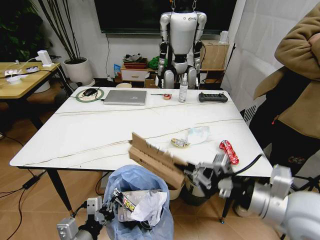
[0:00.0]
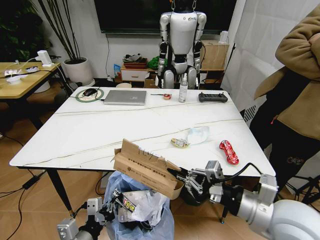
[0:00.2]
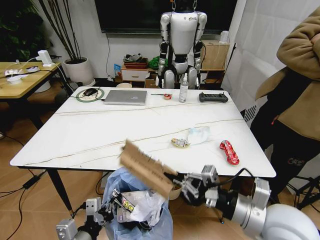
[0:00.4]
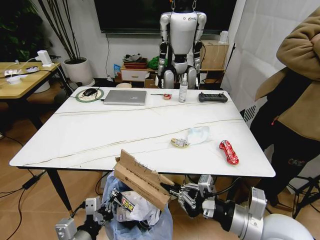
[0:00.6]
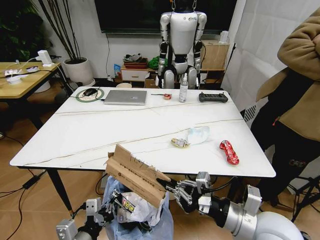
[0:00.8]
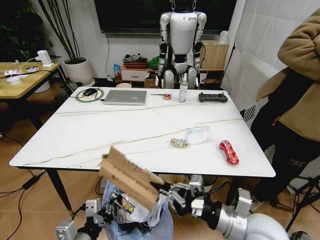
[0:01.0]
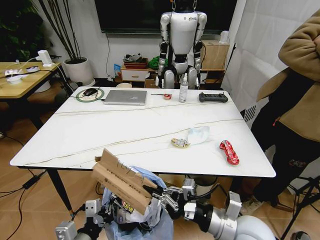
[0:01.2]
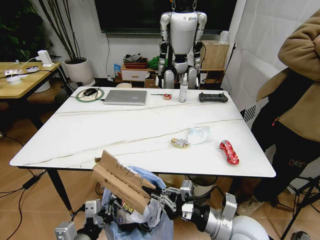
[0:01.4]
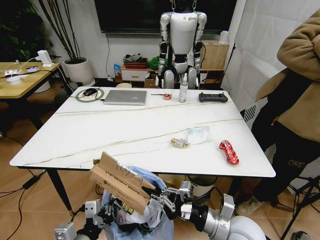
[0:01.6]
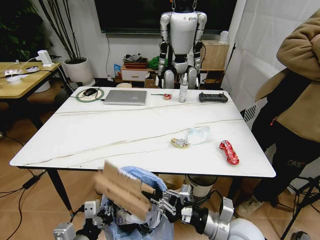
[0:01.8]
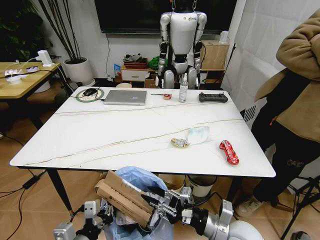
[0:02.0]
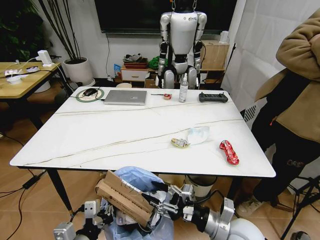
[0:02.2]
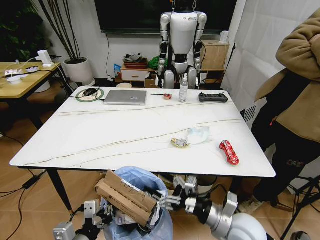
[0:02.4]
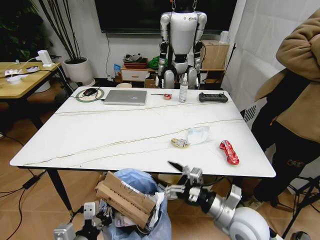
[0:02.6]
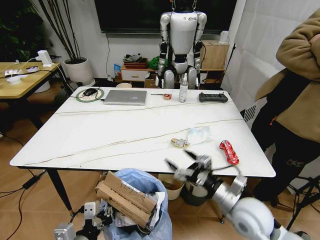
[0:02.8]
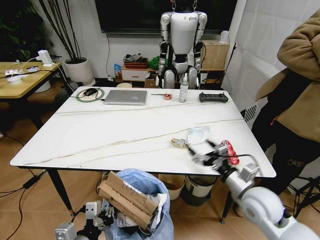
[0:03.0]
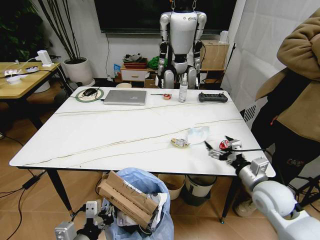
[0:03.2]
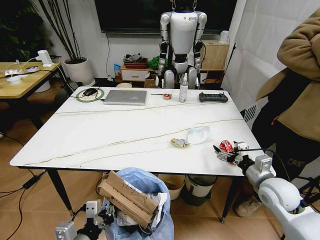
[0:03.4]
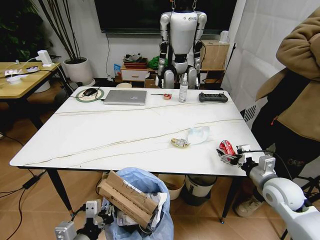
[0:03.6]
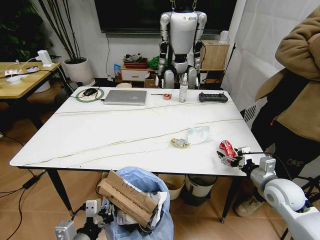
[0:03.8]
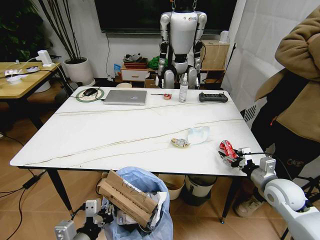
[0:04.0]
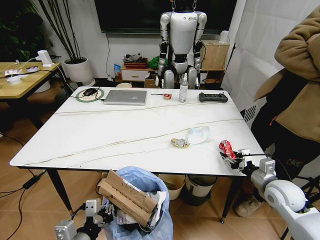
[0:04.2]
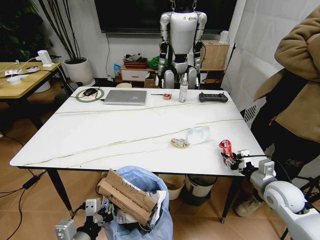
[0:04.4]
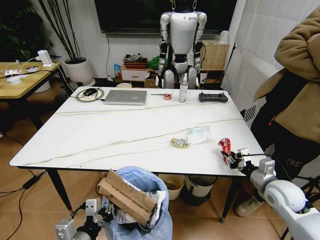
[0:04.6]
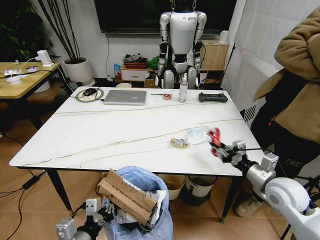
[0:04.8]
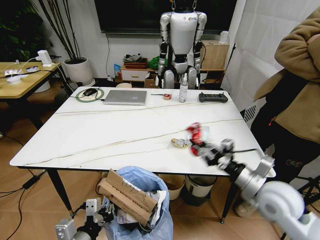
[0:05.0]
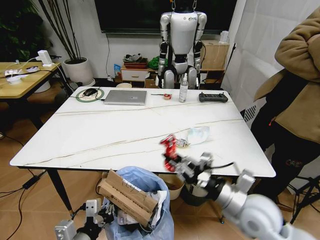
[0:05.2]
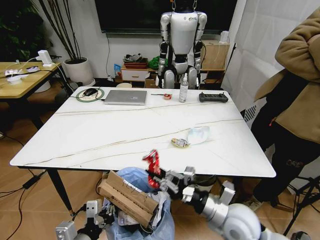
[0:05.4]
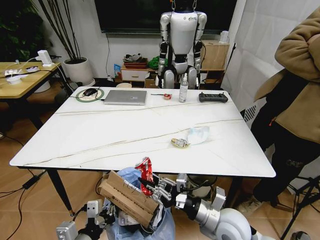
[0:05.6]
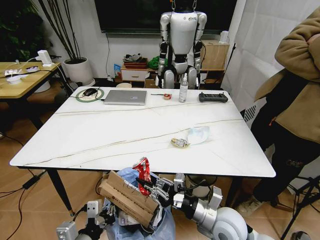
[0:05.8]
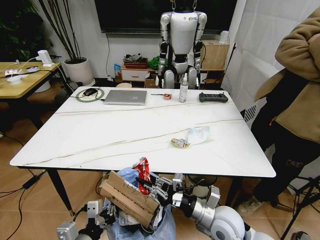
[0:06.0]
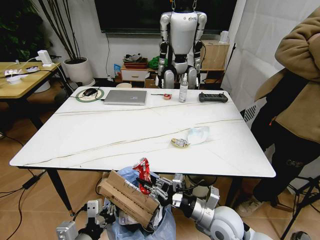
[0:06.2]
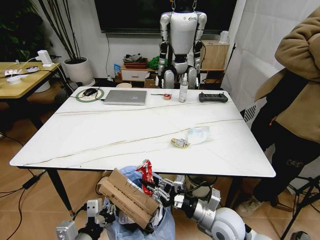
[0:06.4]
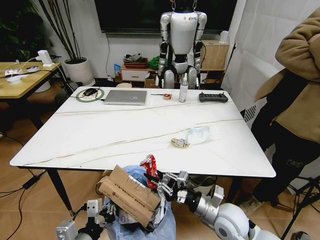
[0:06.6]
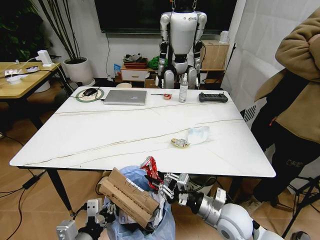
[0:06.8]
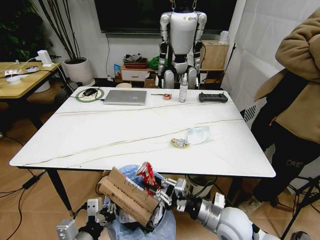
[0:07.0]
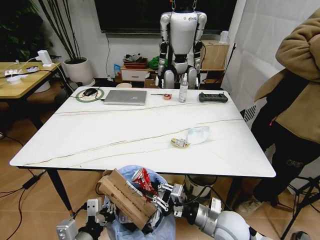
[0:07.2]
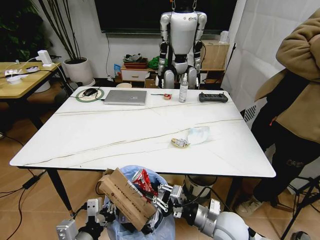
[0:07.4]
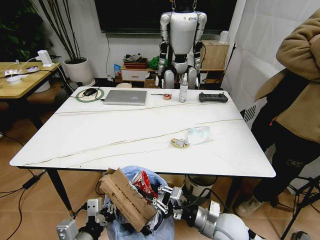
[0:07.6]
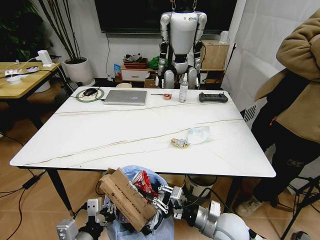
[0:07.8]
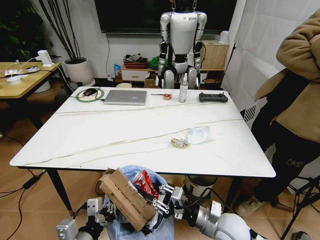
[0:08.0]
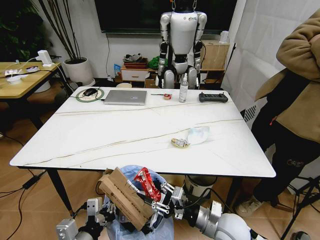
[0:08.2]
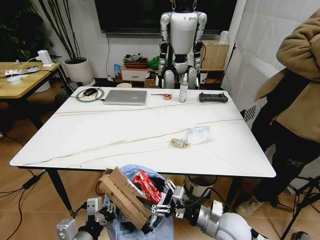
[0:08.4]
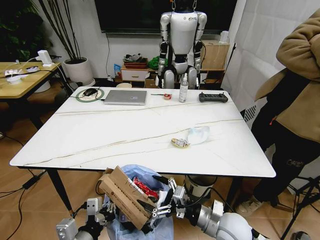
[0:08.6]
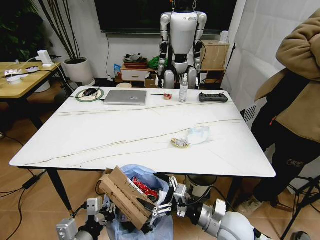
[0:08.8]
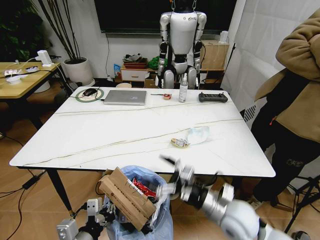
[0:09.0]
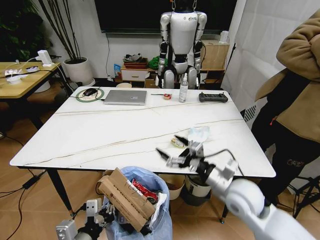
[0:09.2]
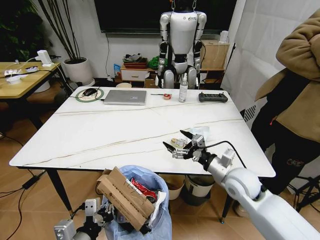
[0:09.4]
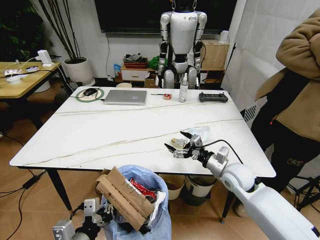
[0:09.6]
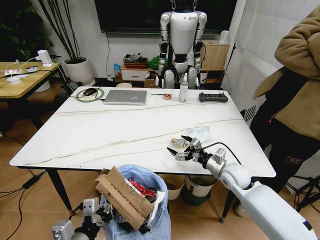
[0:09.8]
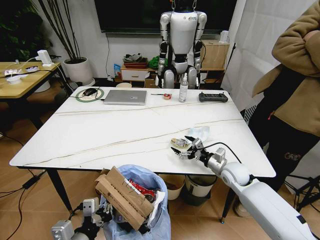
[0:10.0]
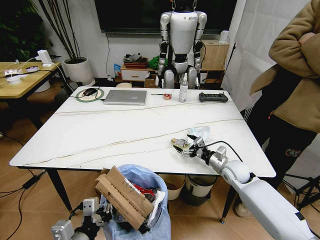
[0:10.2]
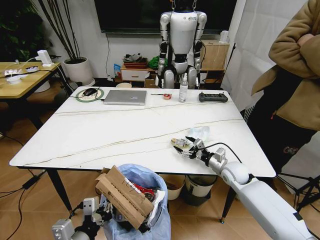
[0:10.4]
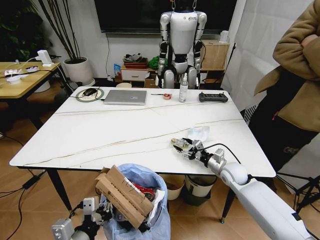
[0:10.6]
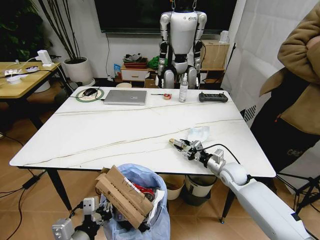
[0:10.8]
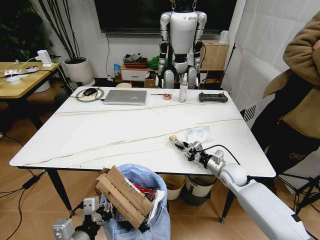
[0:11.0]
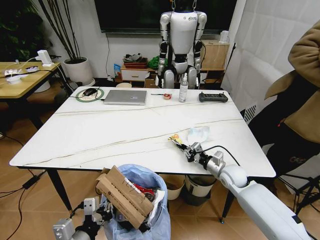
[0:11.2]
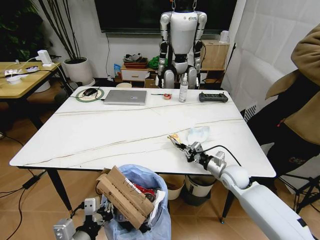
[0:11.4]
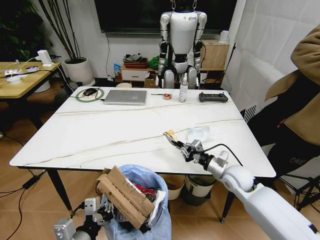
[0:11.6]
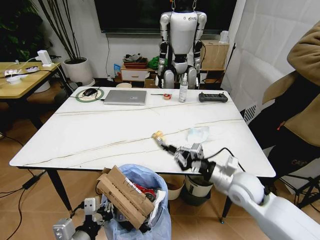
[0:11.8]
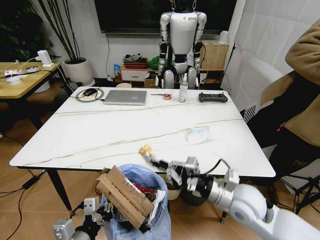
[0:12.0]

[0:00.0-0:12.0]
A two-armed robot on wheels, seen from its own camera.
Task of the whole recording: Pick up the trash bin and place the trash from the table into it.
0:00.0 to 0:01.6: The right gripper goes some 15 cm downward and to the left.
0:01.6 to 0:03.0: The right gripper travels to the right and forward by roughly 10 cm, and opens its fingers.
0:03.0 to 0:04.4: The right gripper shifts approximately 10 cm to the right, and closes.
0:04.4 to 0:06.0: The right gripper travels to the left by about 20 cm.
0:07.6 to 0:09.0: The right gripper opens its fingers.
0:09.0 to 0:10.4: The right gripper shifts roughly 20 cm forward and to the right.
0:10.4 to 0:12.0: The right gripper travels backward, upward and to the left by approximately 20 cm, and closes its fingers.

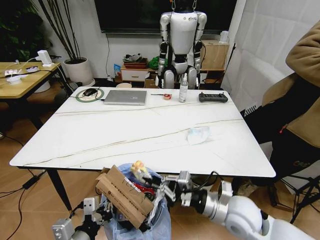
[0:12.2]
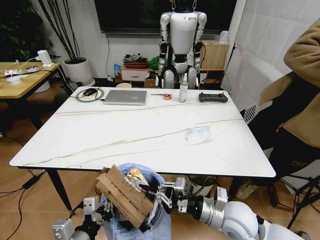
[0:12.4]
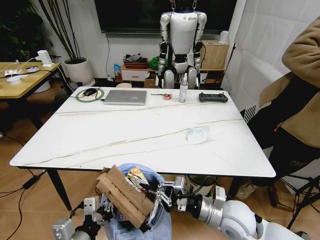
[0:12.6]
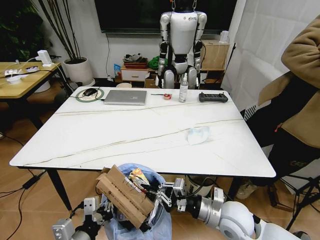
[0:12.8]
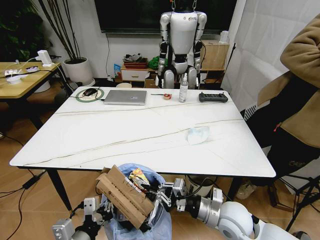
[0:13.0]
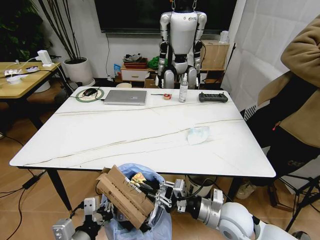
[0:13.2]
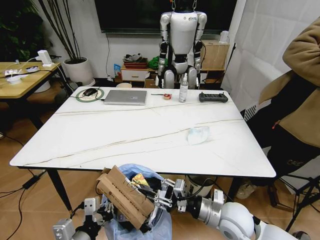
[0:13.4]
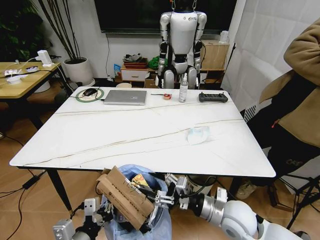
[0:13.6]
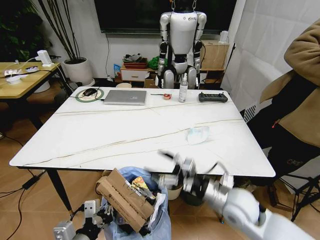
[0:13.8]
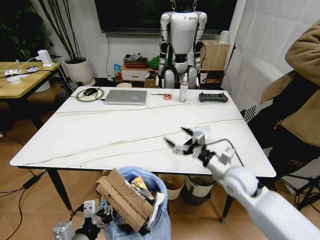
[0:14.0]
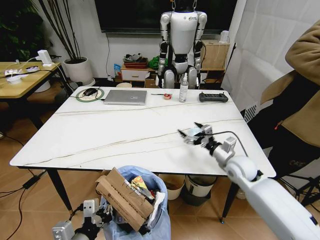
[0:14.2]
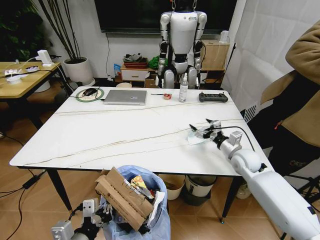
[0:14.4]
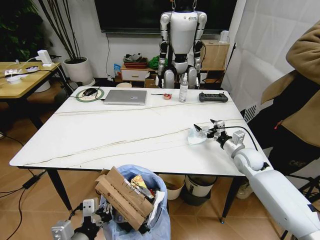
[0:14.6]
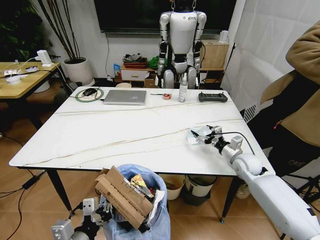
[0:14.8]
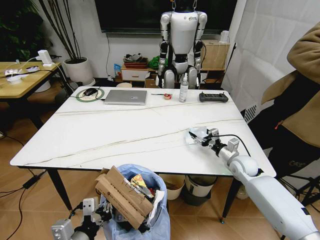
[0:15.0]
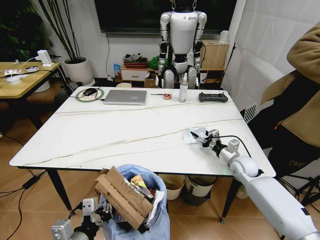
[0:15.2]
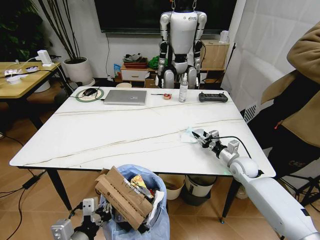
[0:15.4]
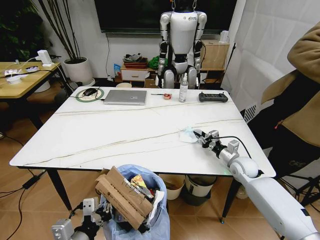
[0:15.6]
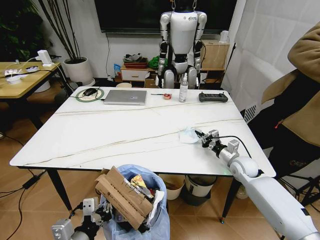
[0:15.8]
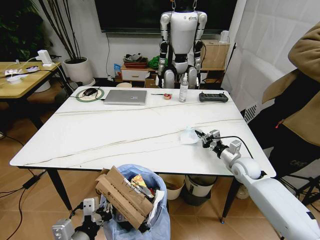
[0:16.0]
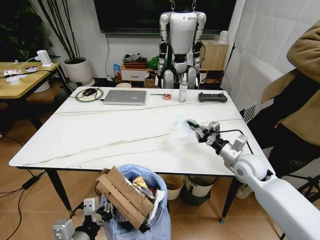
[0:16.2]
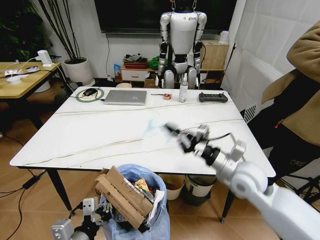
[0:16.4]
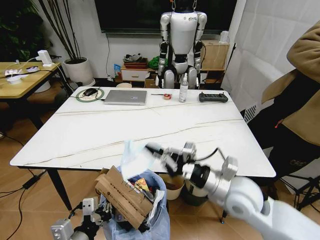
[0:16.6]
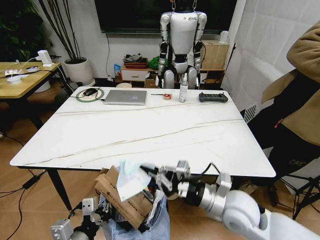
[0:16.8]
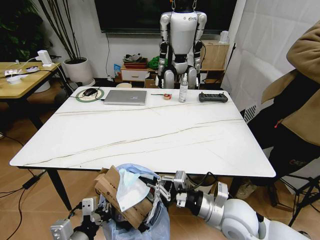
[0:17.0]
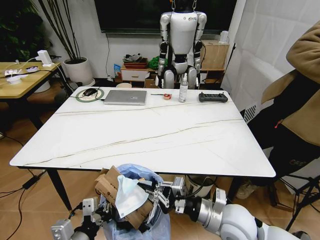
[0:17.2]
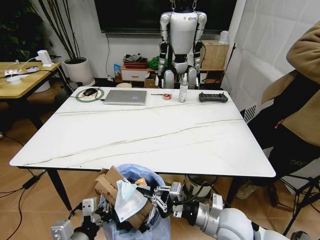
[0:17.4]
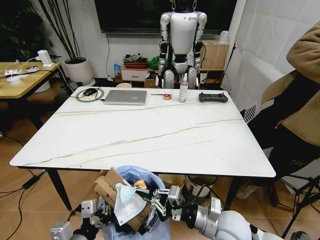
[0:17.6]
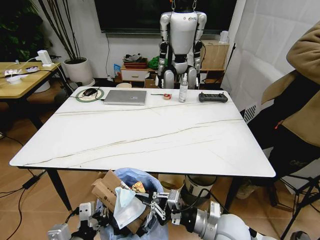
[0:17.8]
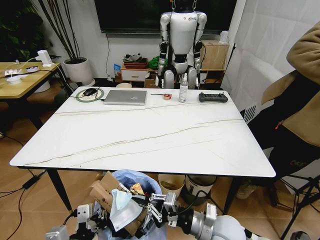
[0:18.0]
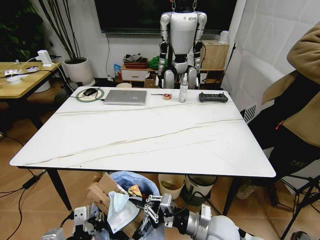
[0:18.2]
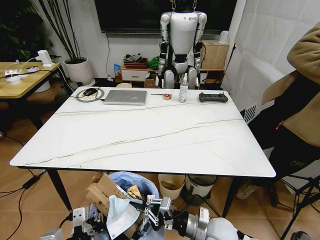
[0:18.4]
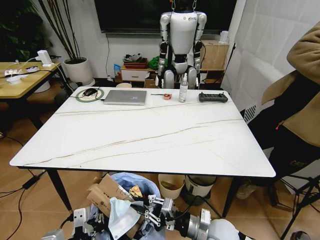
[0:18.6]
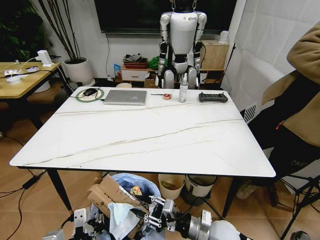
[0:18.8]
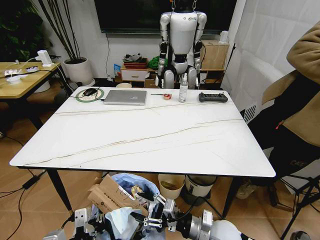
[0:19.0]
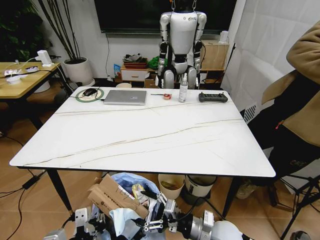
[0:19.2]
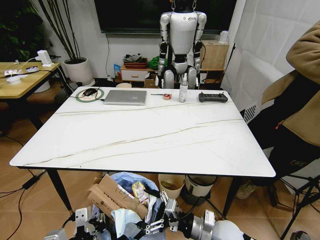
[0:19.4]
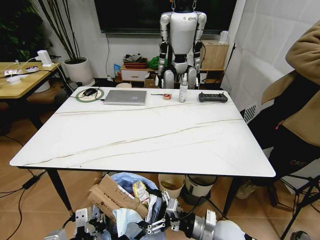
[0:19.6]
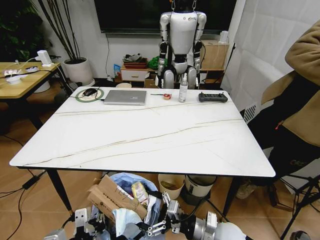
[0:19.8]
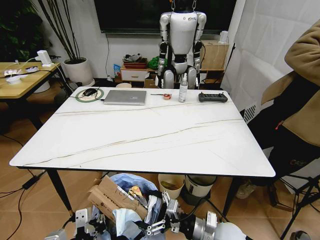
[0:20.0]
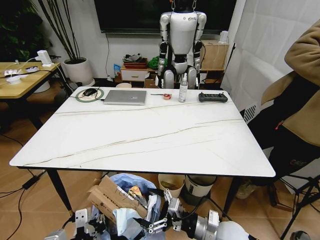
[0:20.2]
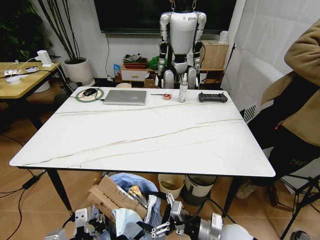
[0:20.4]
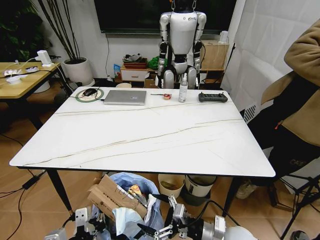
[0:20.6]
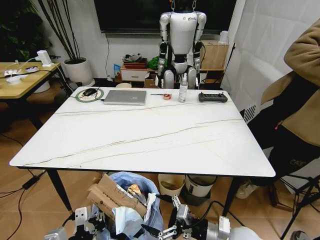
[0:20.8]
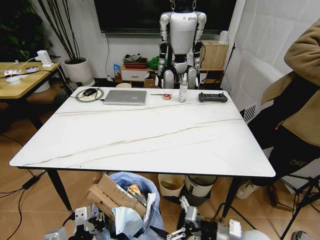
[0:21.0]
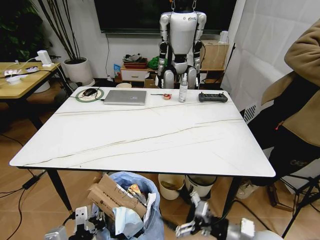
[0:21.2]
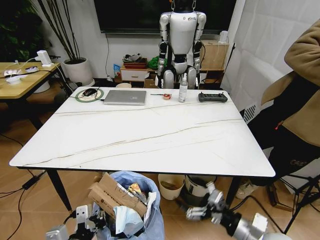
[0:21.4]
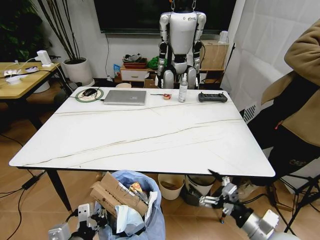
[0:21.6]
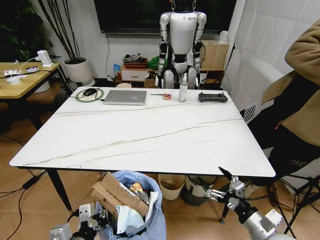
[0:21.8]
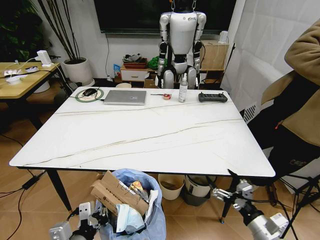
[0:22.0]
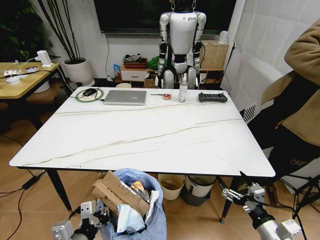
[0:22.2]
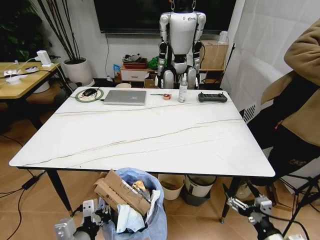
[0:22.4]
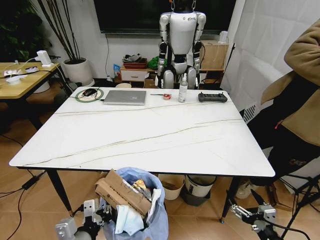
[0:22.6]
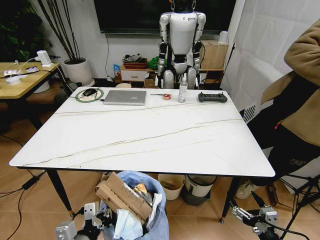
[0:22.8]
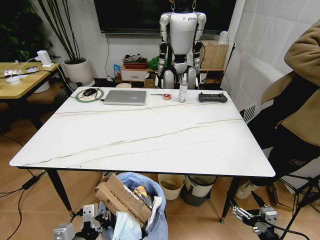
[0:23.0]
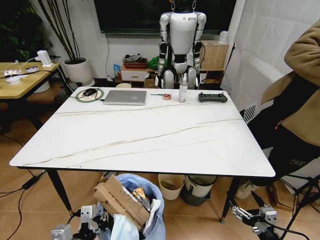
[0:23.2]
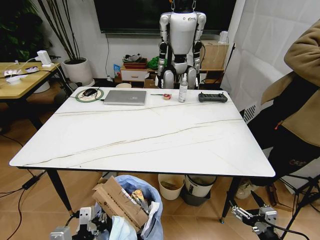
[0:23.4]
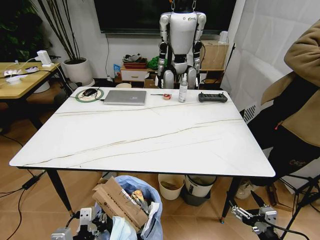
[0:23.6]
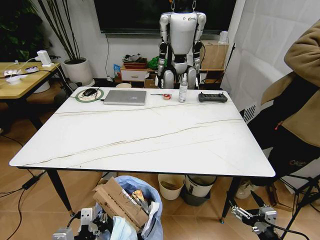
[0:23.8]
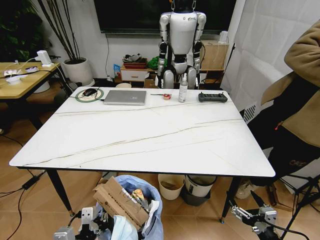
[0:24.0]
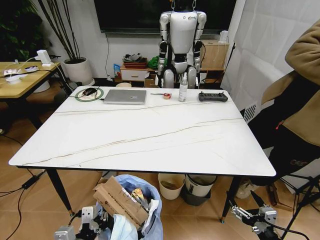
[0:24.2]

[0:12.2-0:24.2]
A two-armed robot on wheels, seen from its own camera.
Task of the whole recording: Pick up the trash bin and place the trash from the table into it.
0:12.2 to 0:13.8: The right gripper opens up.
0:13.8 to 0:15.2: The right gripper travels forward, to the right and downward by about 20 cm.
0:15.2 to 0:16.6: The right gripper heads backward, upward and to the left, covering approximately 25 cm, and closes.
0:16.6 to 0:18.2: The right gripper is displaced downward and backward by approximately 15 cm.
0:18.2 to 0:19.8: The right gripper opens up.
0:19.8 to 0:21.2: The right gripper shifts roughly 5 cm to the right.
0:21.2 to 0:22.6: The right gripper heads backward and to the right, covering approximately 10 cm.
0:22.6 to 0:24.2: The grippers make only small movements.
